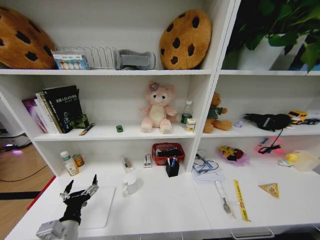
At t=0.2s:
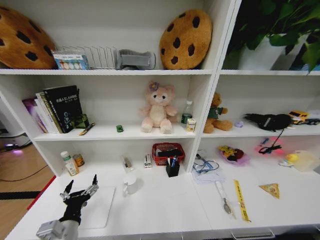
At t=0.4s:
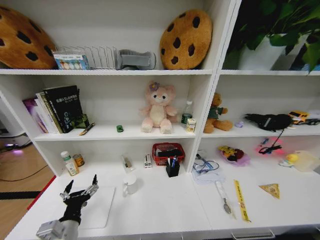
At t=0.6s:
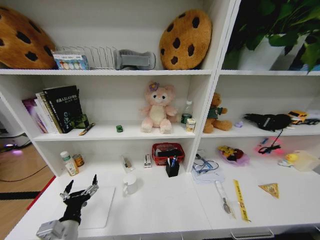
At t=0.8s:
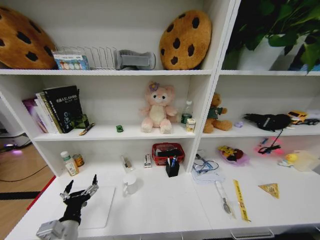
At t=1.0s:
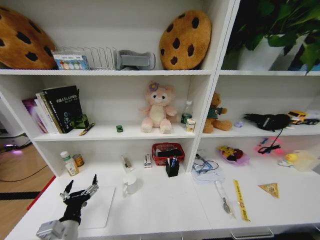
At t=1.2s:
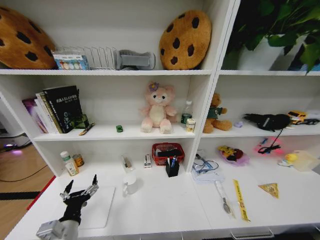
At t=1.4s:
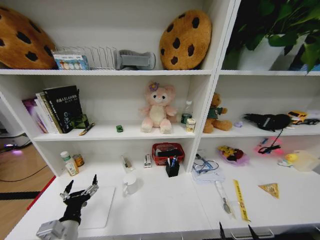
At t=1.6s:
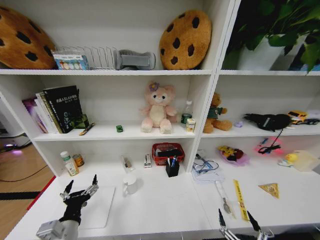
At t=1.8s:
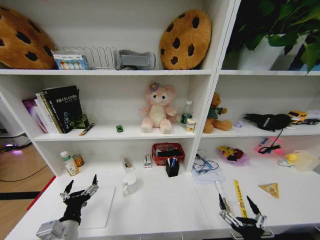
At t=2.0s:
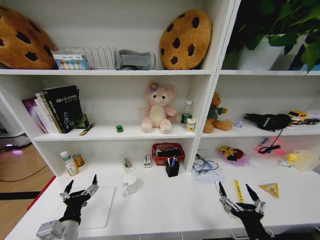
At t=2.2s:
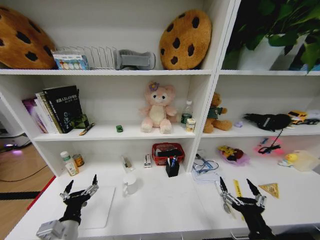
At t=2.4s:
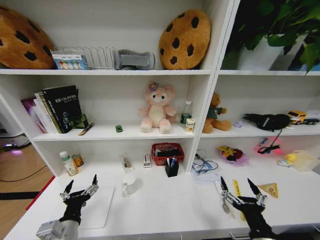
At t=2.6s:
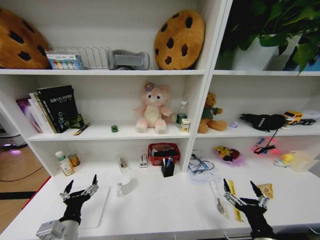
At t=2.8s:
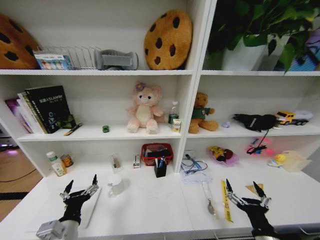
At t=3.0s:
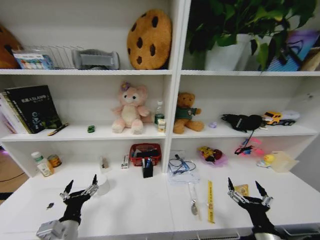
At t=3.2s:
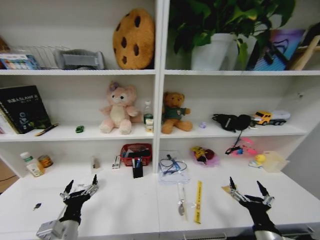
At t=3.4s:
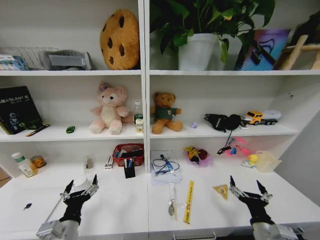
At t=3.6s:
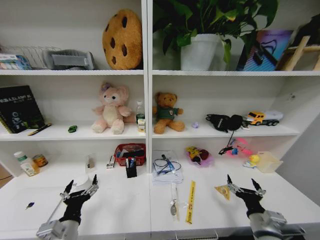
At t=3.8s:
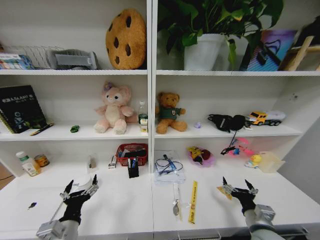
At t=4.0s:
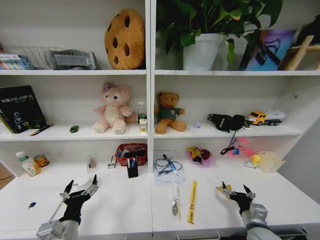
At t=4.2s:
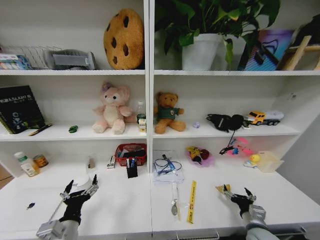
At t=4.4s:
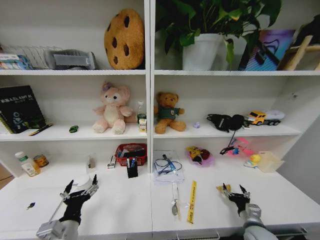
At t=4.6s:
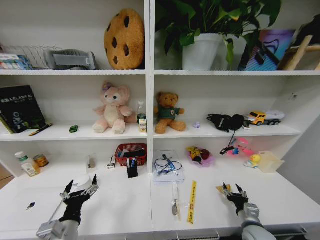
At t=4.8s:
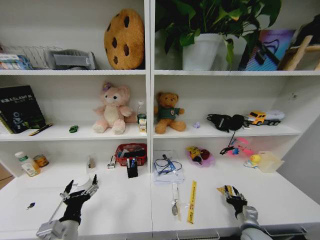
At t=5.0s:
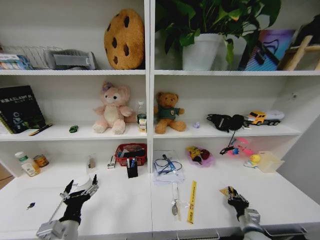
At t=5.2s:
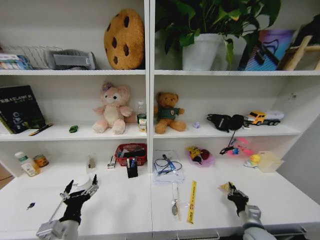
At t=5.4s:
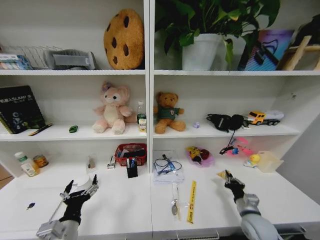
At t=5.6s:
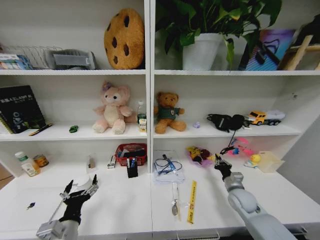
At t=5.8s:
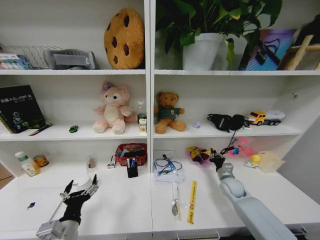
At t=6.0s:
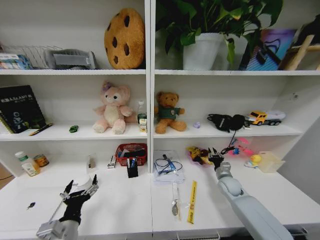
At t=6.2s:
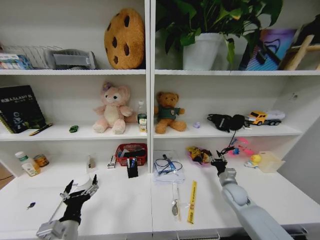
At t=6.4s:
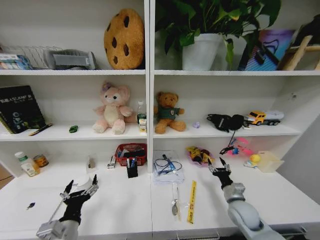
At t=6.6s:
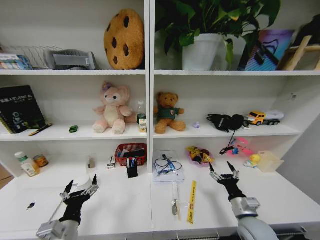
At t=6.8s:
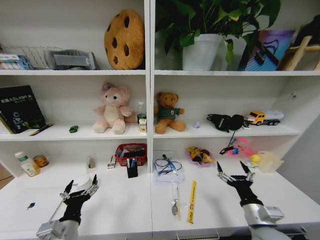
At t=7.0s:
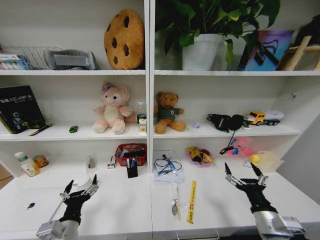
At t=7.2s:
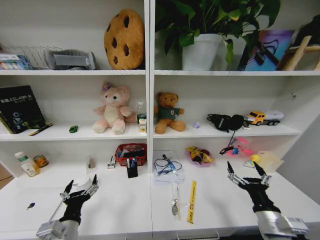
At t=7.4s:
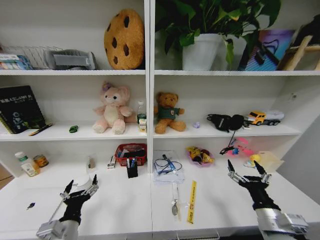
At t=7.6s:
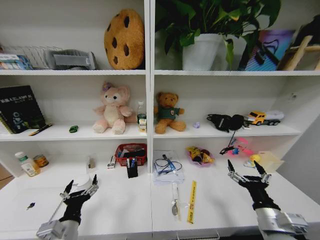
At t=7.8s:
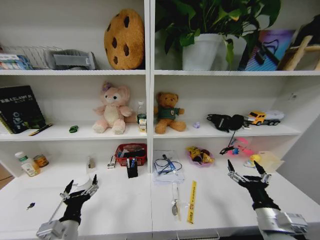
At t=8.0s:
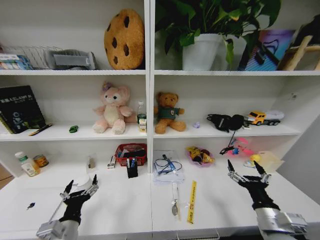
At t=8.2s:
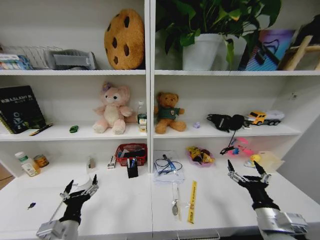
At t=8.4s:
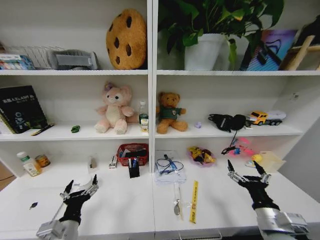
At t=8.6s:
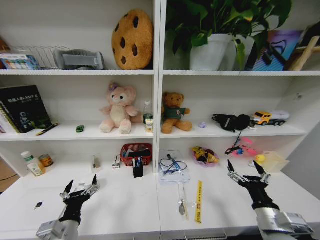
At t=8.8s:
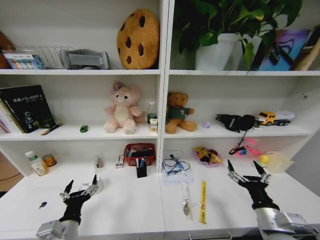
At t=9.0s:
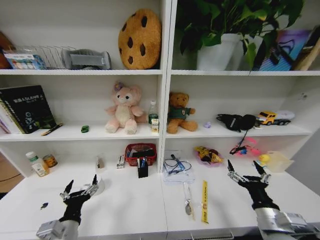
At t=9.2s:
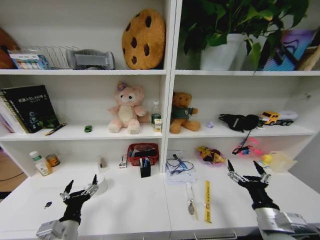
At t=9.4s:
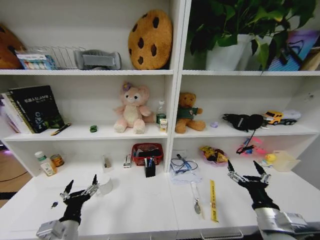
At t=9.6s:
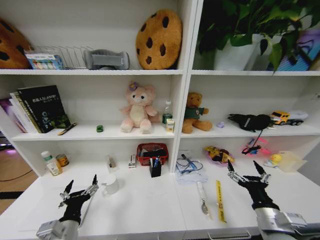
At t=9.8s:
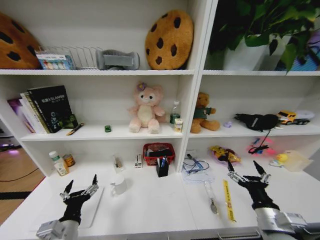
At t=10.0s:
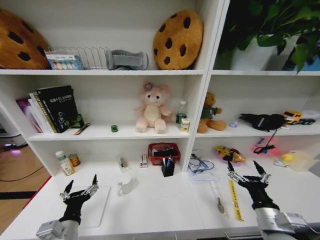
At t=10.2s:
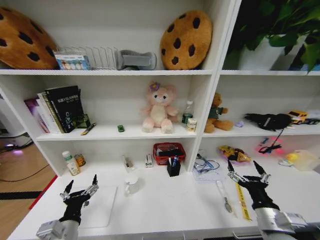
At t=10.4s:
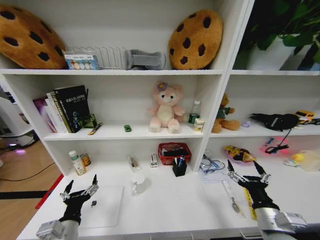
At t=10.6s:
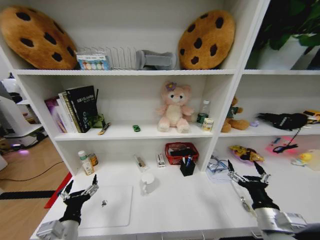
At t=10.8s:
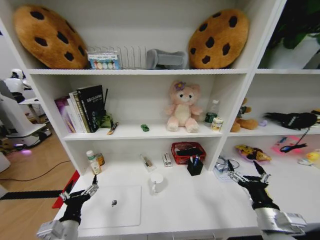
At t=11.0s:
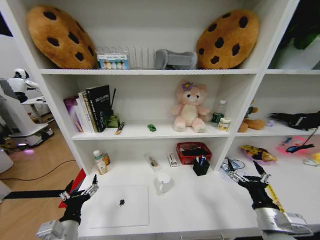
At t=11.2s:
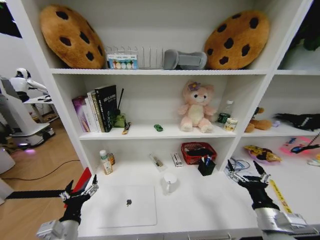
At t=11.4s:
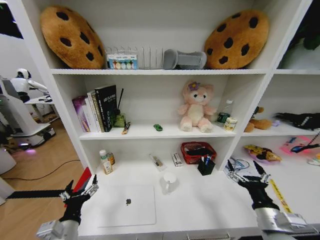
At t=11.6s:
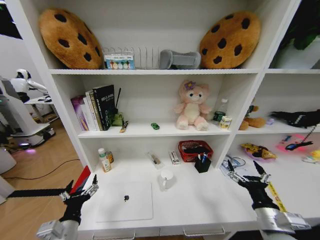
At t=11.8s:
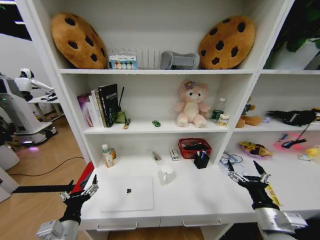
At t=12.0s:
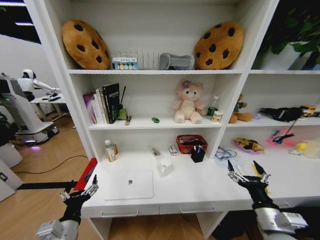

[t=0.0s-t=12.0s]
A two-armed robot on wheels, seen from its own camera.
Task of the whole recording: Organize the objects on the table.
t=1.6s to t=3.0s: The right gripper moves forward and upward, about 10 cm.
t=3.0s to t=4.4s: The right gripper heads forward, downward and to the right, covering some 15 cm.
t=4.4s to t=6.0s: The right gripper travels forward by approximately 20 cm, and closes.
t=6.0s to t=7.6s: The right gripper moves backward and upward, roughly 25 cm, and opens.

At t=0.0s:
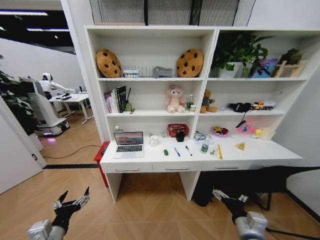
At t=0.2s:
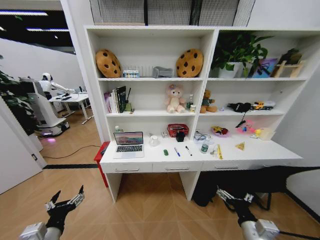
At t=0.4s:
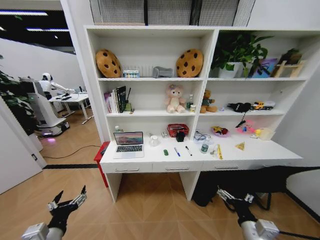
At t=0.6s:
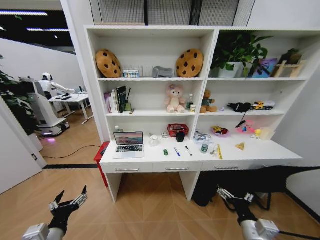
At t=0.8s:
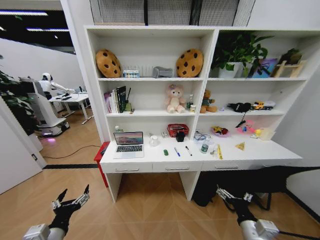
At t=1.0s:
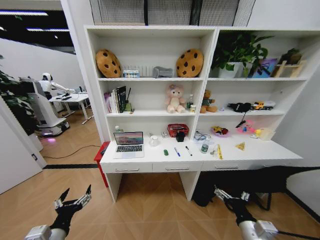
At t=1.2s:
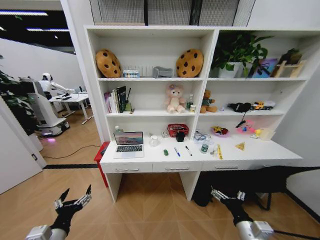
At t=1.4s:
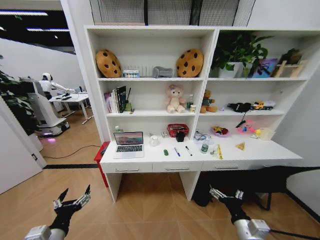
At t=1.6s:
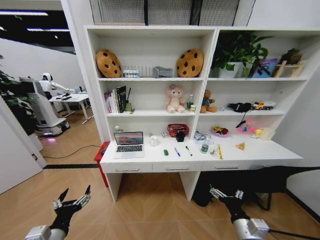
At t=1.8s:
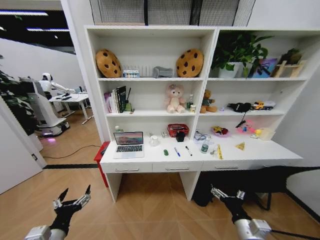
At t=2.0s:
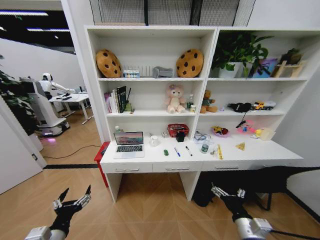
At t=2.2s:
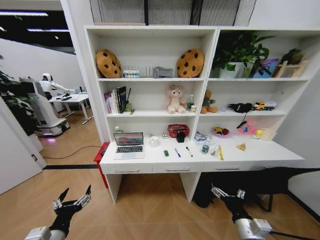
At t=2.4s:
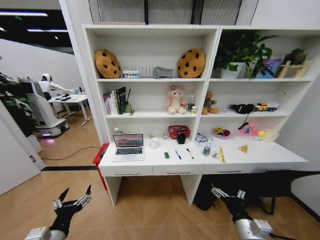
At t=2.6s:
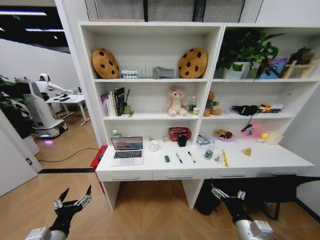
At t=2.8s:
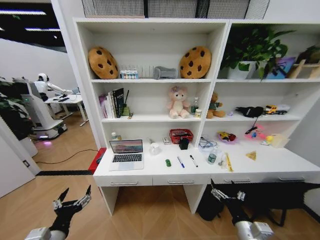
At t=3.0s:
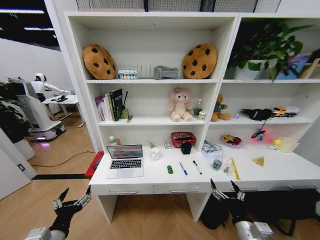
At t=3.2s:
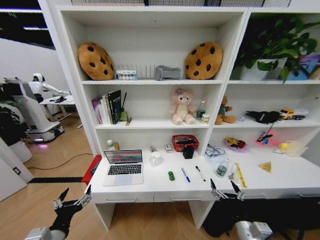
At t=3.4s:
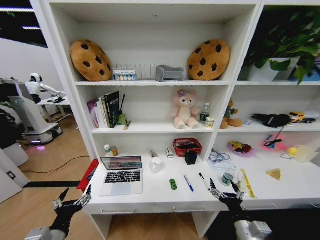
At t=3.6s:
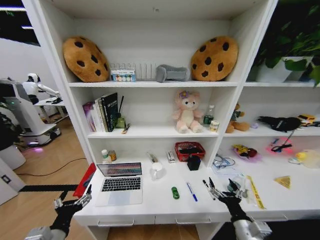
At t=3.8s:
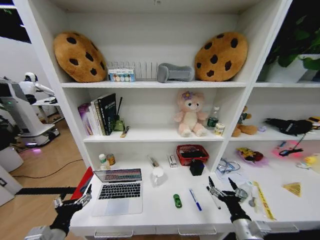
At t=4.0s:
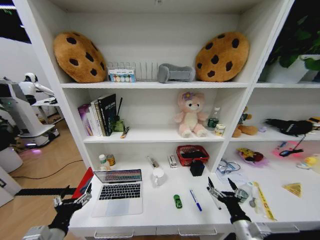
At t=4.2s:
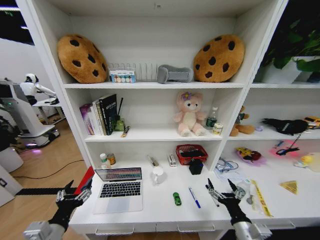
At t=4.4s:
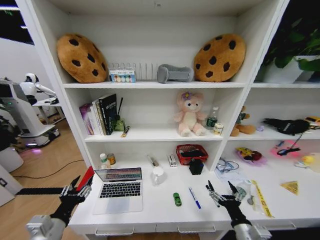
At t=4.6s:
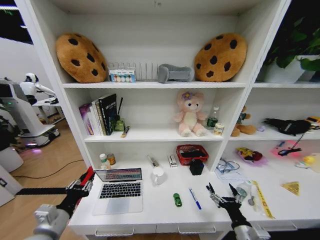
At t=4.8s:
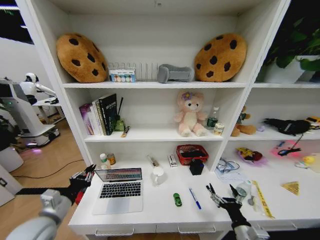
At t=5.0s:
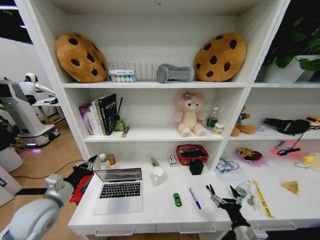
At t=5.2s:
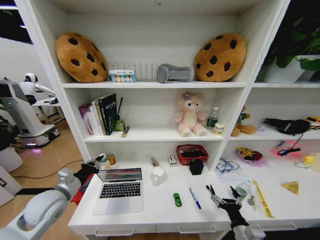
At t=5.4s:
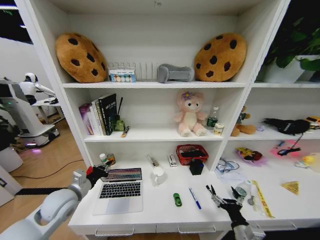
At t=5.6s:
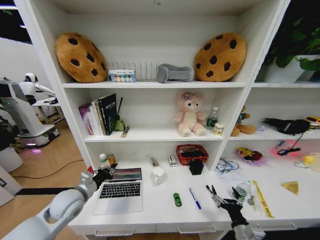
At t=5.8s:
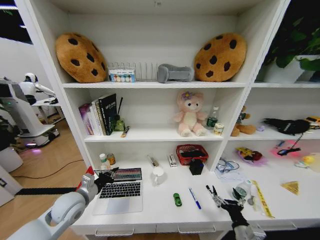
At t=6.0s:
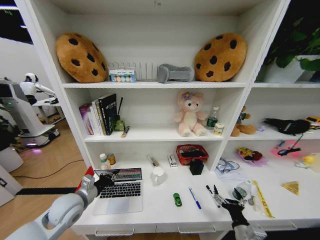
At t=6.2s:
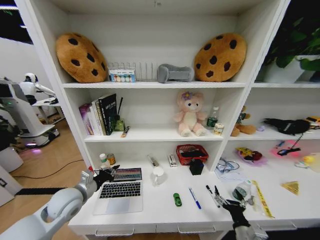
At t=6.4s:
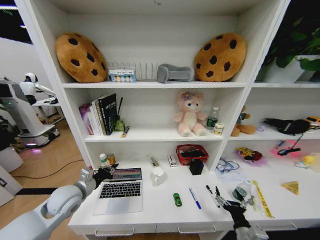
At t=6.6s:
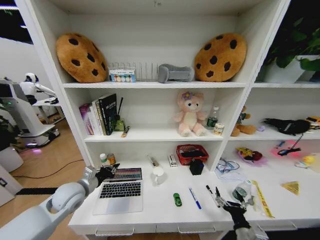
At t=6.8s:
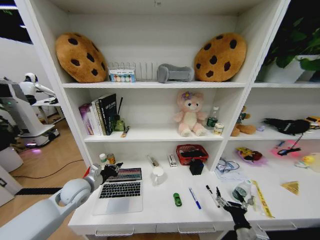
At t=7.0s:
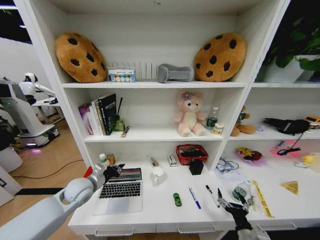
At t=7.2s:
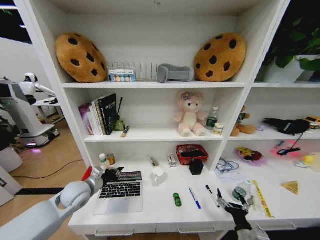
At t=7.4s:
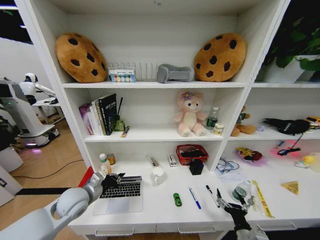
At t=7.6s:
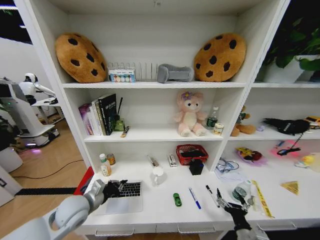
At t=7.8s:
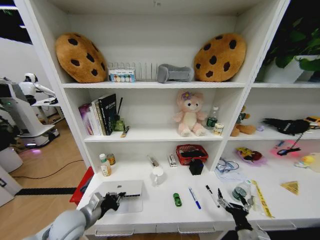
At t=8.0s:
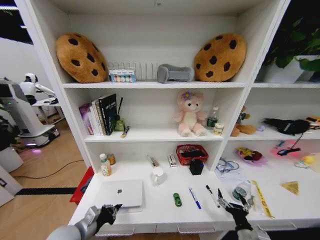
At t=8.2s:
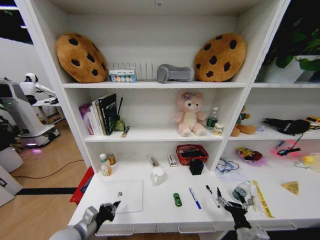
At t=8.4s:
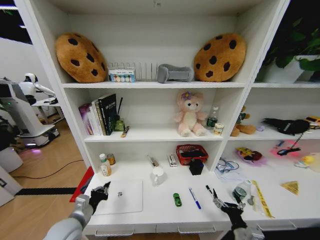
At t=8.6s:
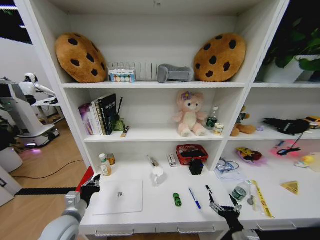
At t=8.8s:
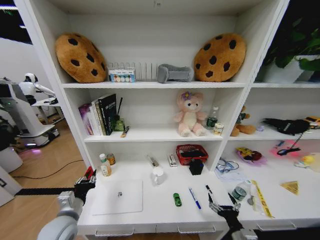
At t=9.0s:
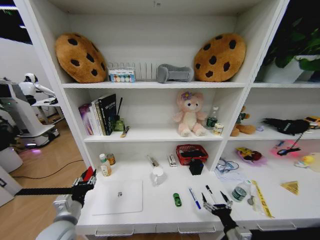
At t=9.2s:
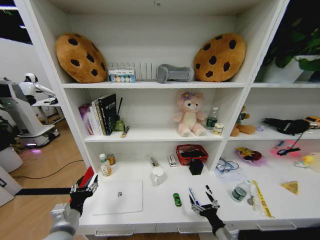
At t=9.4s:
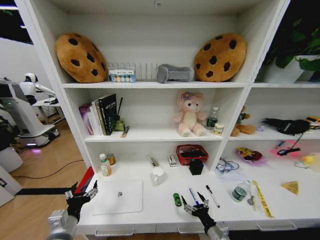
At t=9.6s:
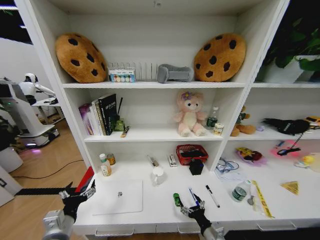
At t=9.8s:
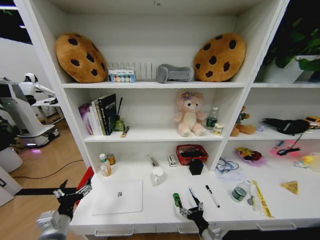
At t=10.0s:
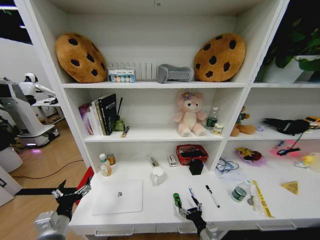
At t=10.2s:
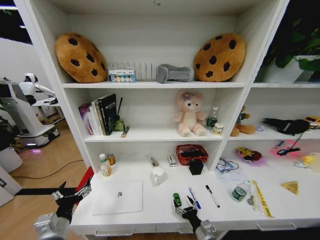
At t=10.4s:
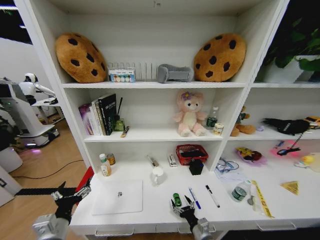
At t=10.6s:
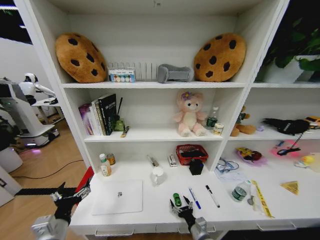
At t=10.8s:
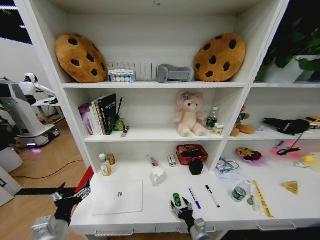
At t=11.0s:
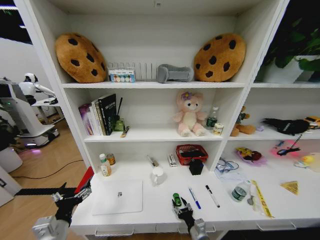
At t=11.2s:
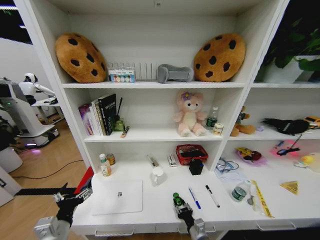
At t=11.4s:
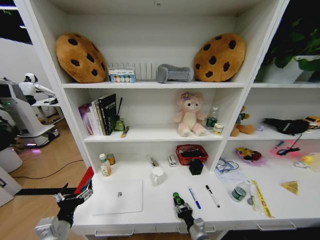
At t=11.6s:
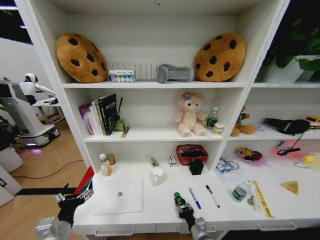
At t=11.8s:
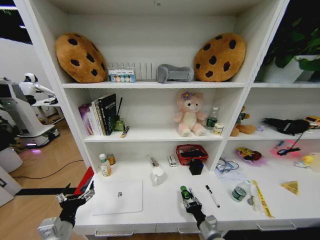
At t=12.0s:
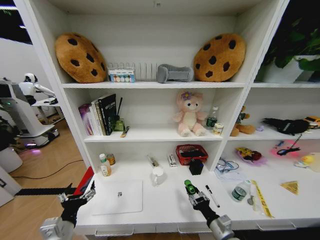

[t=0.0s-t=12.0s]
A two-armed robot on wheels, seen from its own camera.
Task of the whole recording: Organize the objects on the table.
t=3.0s to t=4.4s: The left gripper closes its fingers.
t=4.4s to t=6.0s: The left gripper goes roughly 15 cm forward, and closes its fingers.
t=7.6s to t=9.0s: The left gripper is displaced backward by roughly 5 cm, and opens up.
t=9.0s to t=10.4s: The left gripper shifts about 5 cm backward, and opens up, while the right gripper goes about 10 cm to the left and downward.
t=10.4s to t=12.0s: The right gripper shifts approximately 5 cm upward, and closes its fingers.
